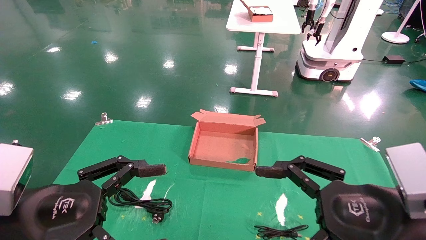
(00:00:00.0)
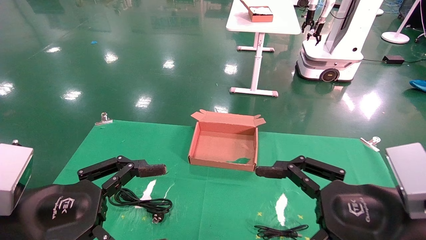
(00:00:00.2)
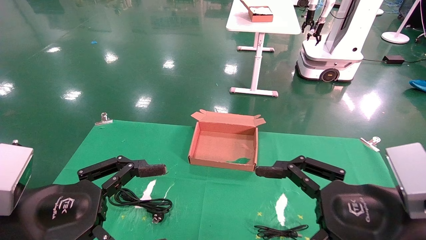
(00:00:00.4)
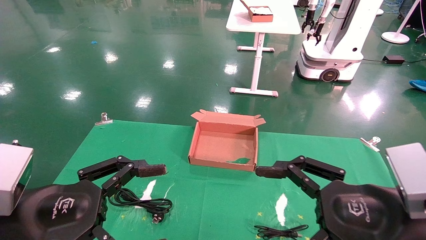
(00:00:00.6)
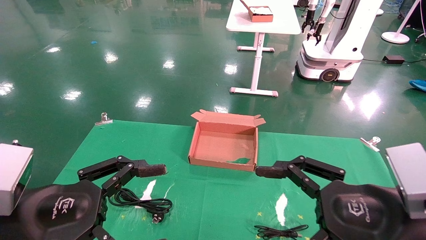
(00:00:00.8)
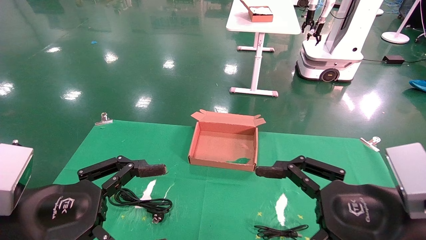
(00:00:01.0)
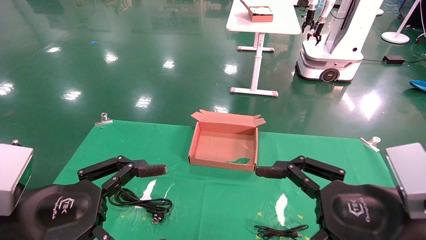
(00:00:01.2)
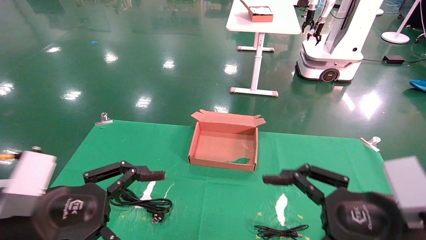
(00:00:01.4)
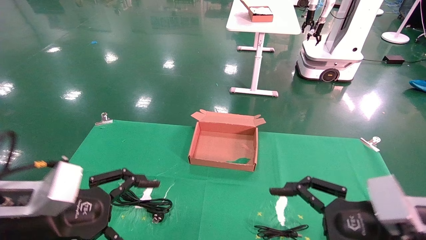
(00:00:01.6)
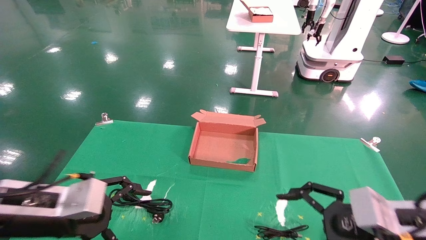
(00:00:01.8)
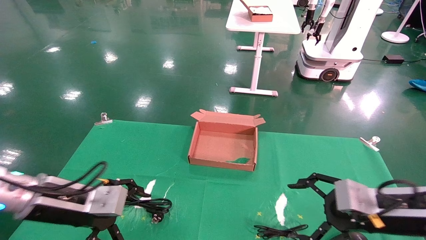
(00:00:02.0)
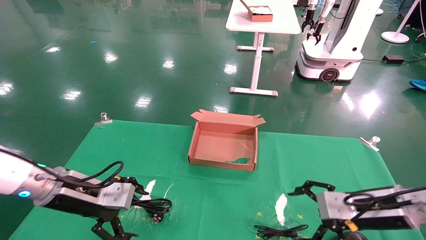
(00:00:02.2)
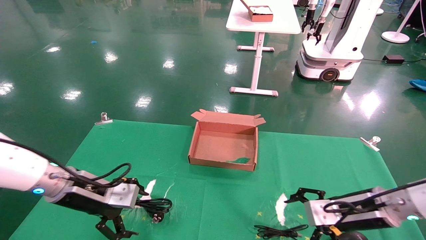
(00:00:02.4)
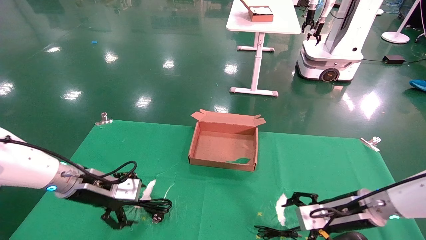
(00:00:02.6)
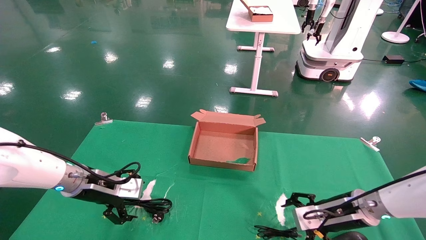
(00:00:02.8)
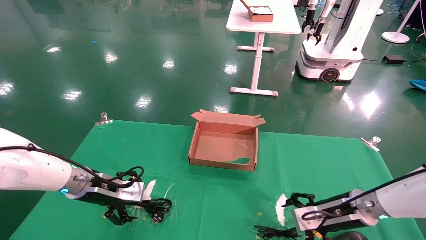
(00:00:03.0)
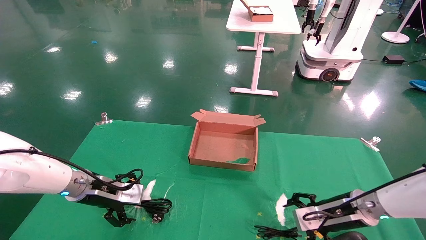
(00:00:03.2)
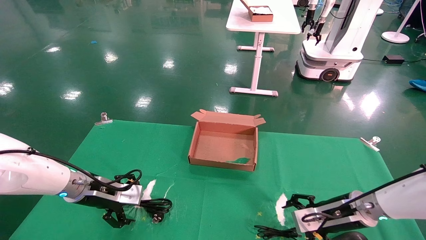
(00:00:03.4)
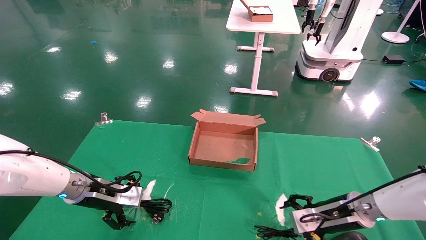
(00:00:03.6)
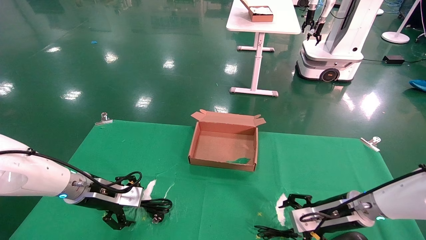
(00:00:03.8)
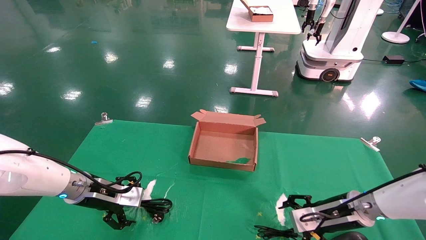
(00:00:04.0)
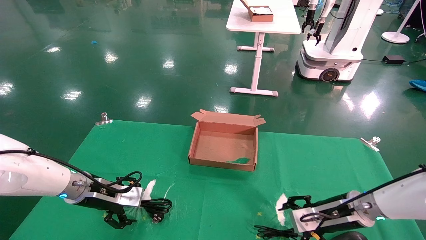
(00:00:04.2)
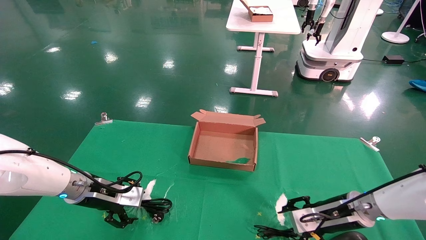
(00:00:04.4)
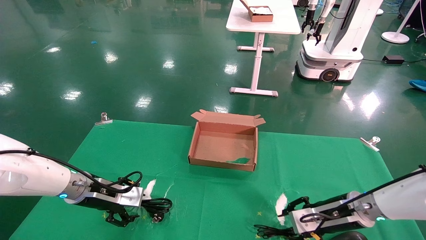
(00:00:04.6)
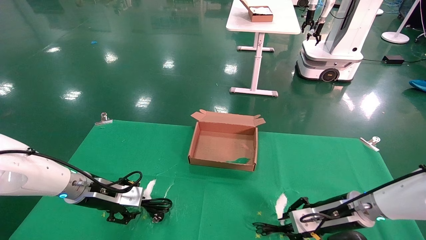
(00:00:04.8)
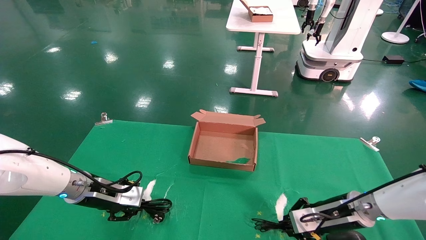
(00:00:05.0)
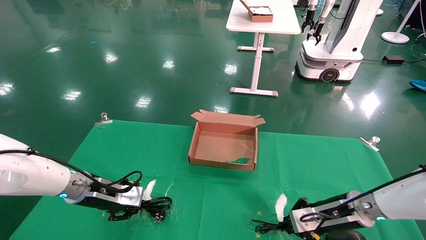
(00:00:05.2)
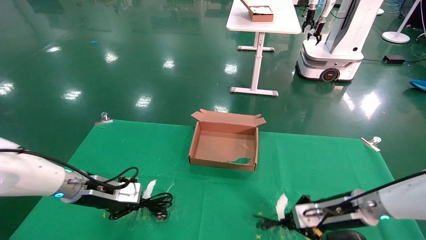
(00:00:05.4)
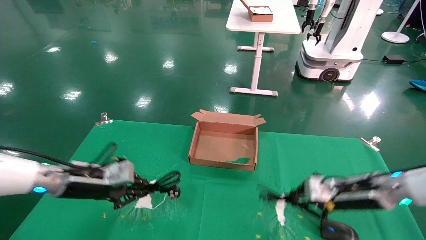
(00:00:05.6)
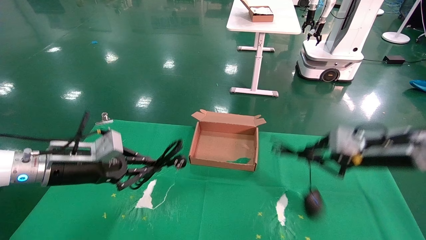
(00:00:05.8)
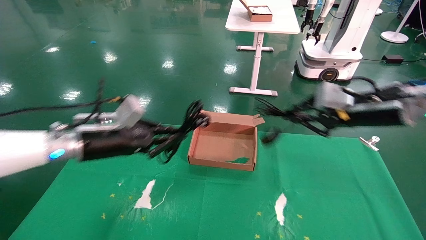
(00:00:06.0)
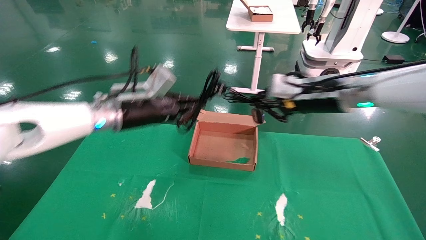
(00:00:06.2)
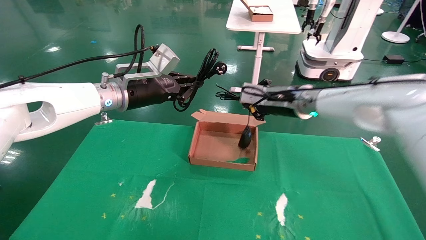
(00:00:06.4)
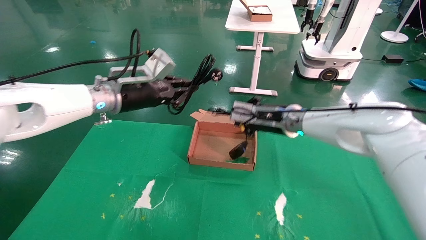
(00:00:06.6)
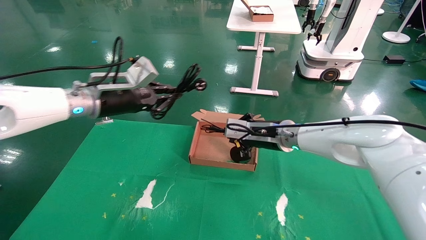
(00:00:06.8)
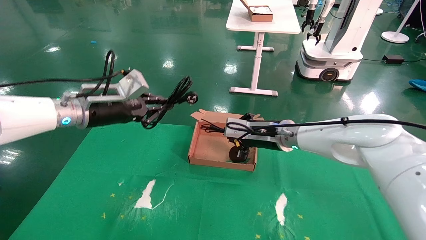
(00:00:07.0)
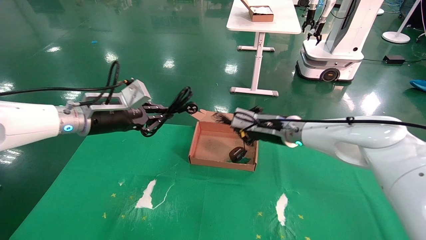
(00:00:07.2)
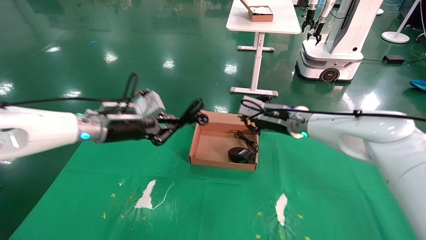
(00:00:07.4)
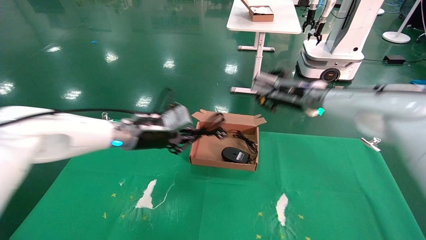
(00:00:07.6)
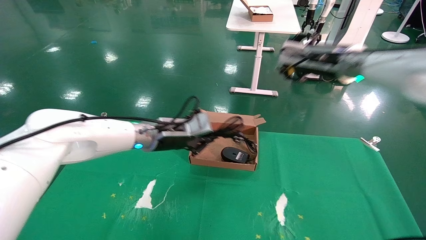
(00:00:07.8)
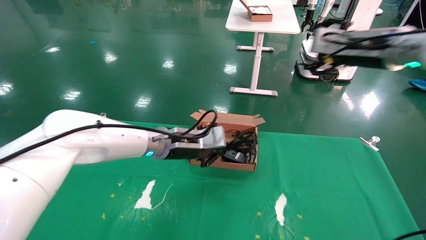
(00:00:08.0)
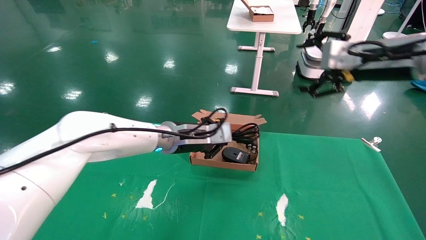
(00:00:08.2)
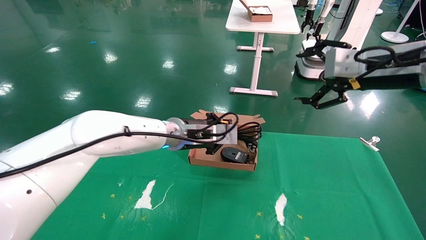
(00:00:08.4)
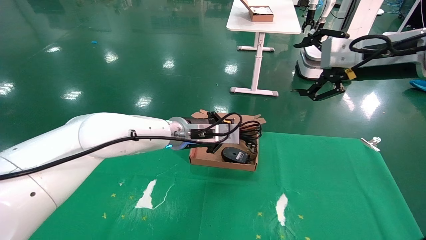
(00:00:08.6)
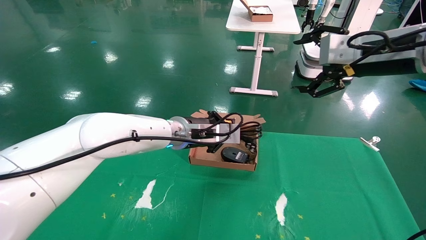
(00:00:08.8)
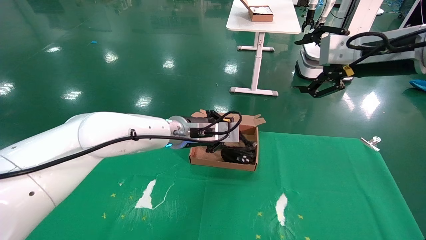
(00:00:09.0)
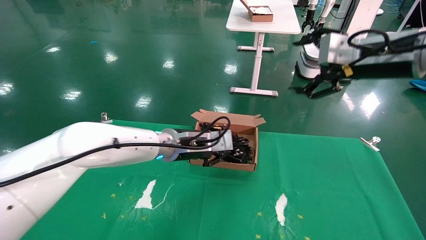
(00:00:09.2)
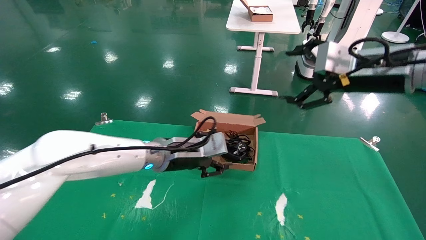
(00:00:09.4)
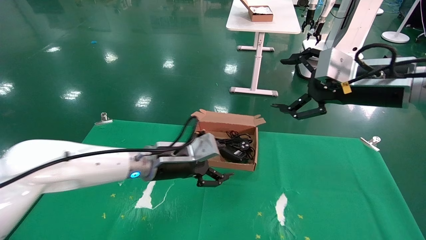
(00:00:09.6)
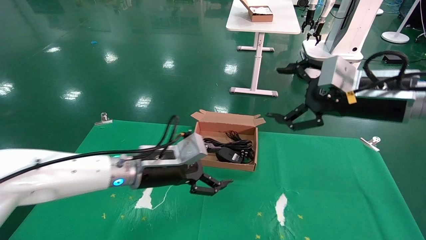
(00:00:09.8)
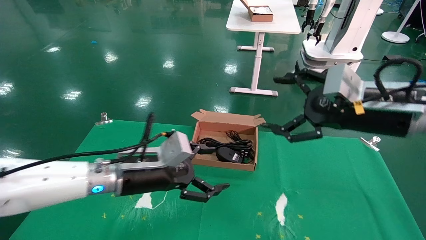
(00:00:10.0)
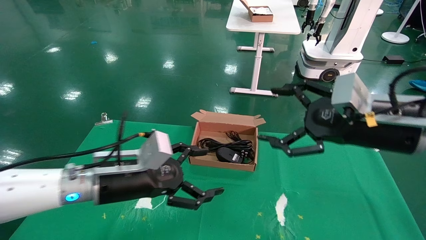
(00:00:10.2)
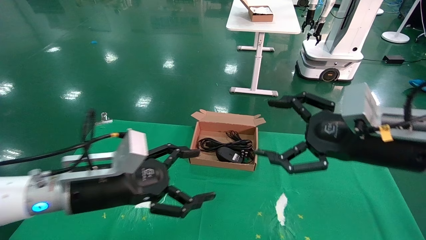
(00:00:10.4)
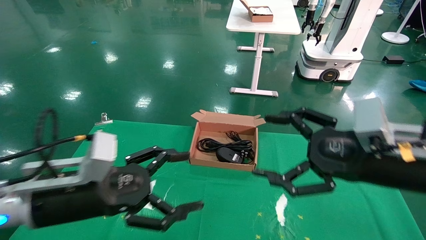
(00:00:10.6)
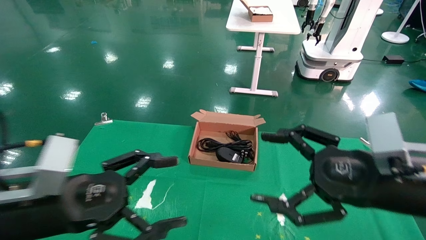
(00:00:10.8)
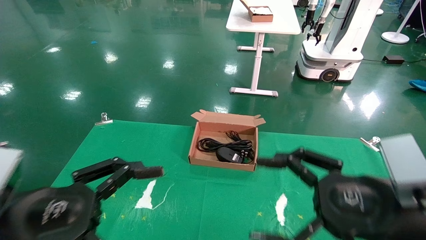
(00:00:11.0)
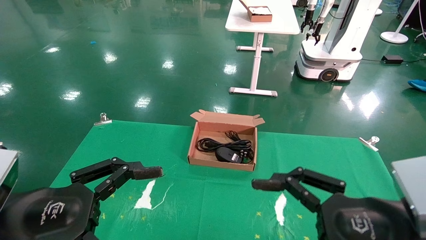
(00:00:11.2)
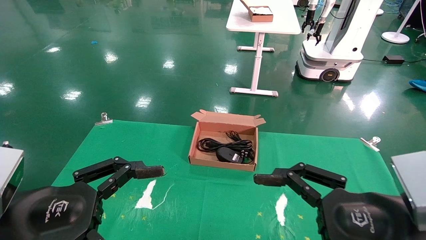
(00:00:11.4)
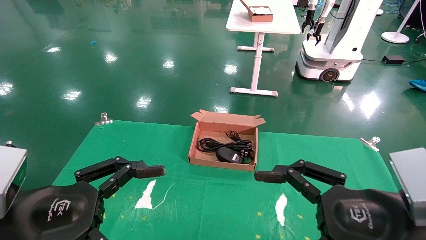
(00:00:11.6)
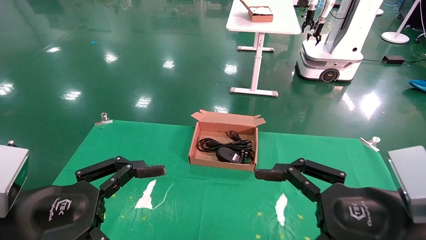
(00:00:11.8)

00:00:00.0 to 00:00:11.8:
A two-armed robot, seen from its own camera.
Step, 00:00:01.4 to 00:00:05.2: Grab and lift both the mouse and power cord from the accessory packaging area at the same time.
Step, 00:00:05.4 to 00:00:09.2: Place the mouse and power cord into the box.
00:00:00.0 to 00:00:01.4: There are only small adjustments of the grippers.
00:00:01.4 to 00:00:03.0: The left gripper goes roughly 20 cm forward, while the right gripper goes about 20 cm forward and downward.
00:00:03.0 to 00:00:04.4: Both grippers stay about where they are.
00:00:04.4 to 00:00:06.0: The left gripper shifts some 15 cm upward and to the right, and closes up. Meanwhile the right gripper travels upward by approximately 20 cm, and closes its fingers.
00:00:06.0 to 00:00:07.4: The right gripper goes about 15 cm to the left and forward.
00:00:07.4 to 00:00:08.8: The left gripper travels to the right by about 15 cm. The right gripper heads backward, upward and to the right, covering approximately 20 cm, and opens.
00:00:08.8 to 00:00:10.4: The left gripper moves backward and to the left, approximately 20 cm, and opens up; the right gripper shifts approximately 15 cm downward and backward.
00:00:10.4 to 00:00:11.8: The left gripper goes approximately 10 cm backward and to the left. The right gripper goes some 10 cm backward and downward.
